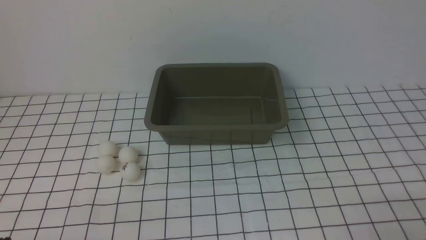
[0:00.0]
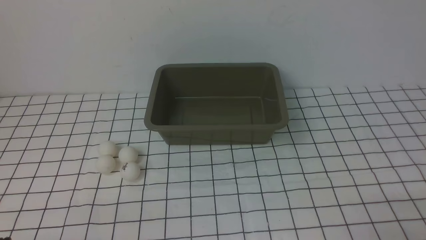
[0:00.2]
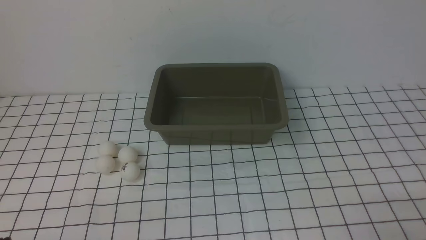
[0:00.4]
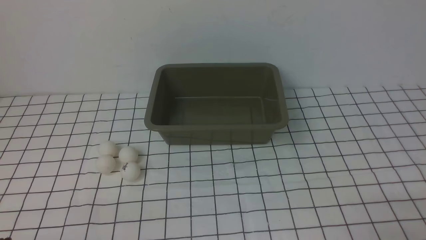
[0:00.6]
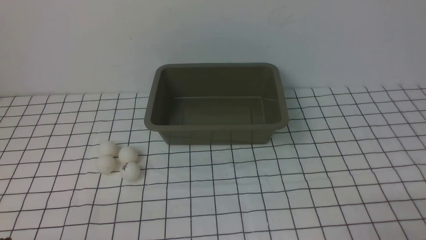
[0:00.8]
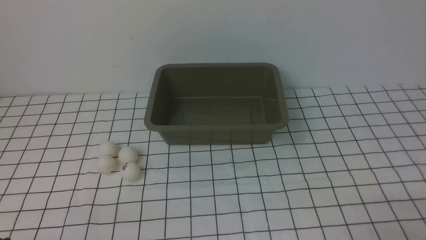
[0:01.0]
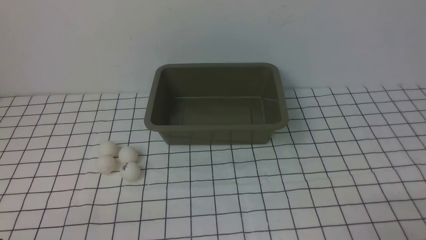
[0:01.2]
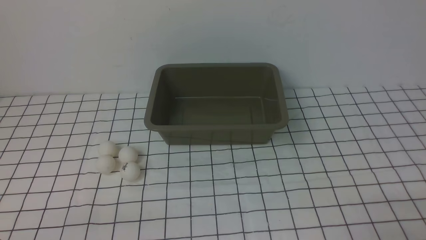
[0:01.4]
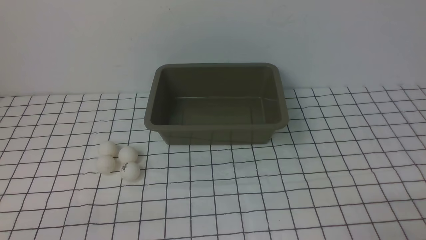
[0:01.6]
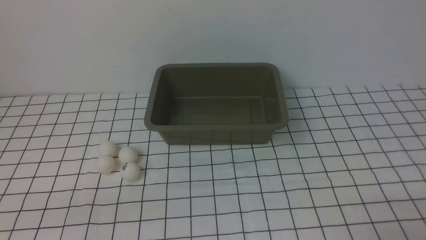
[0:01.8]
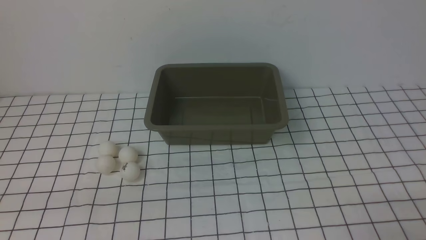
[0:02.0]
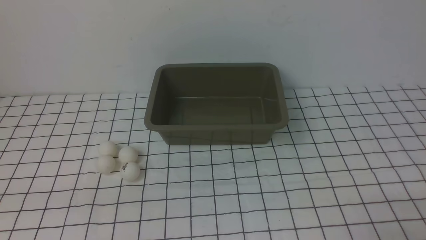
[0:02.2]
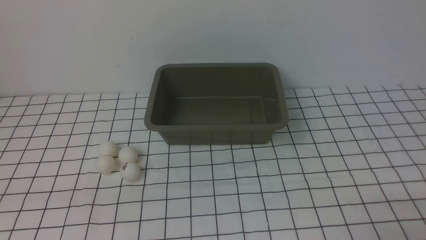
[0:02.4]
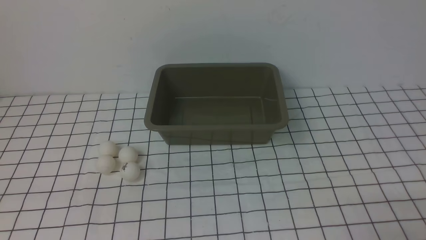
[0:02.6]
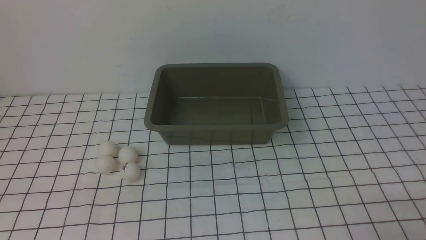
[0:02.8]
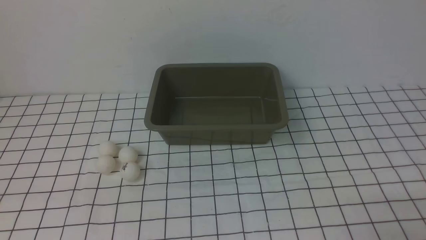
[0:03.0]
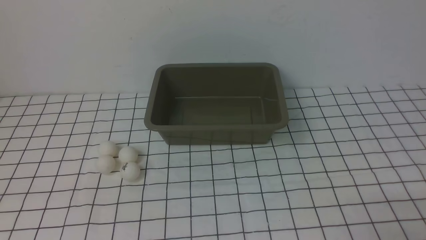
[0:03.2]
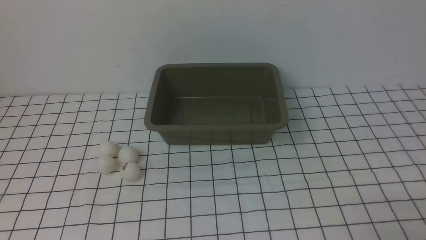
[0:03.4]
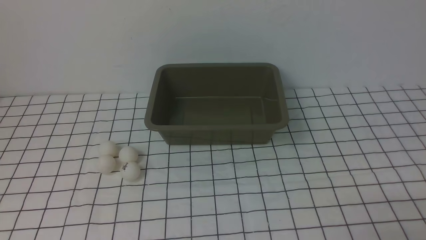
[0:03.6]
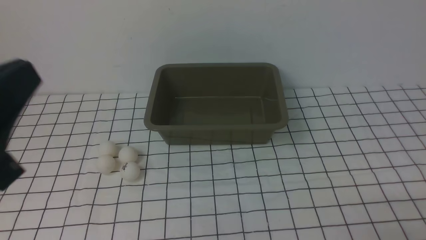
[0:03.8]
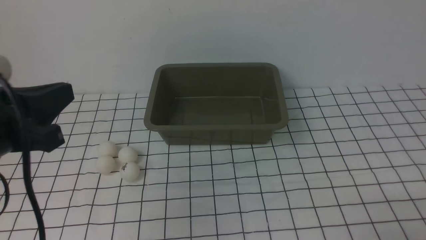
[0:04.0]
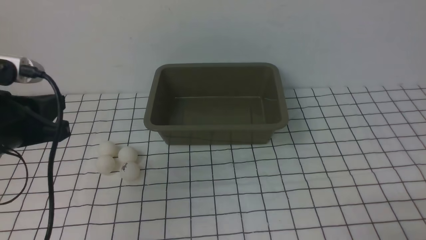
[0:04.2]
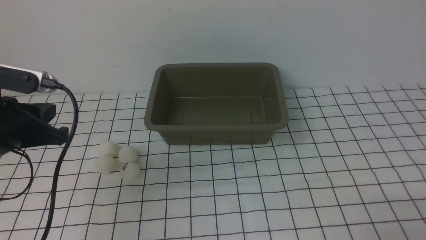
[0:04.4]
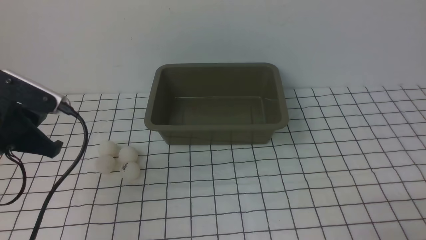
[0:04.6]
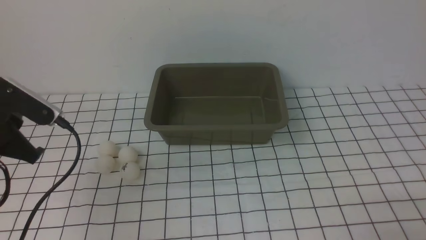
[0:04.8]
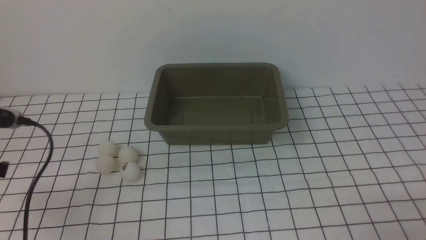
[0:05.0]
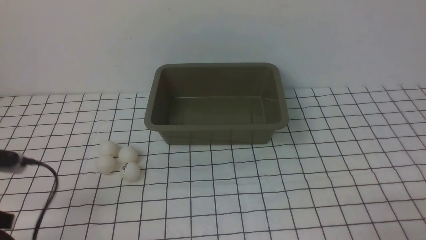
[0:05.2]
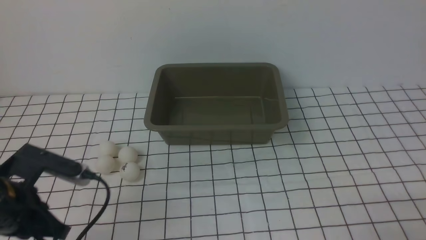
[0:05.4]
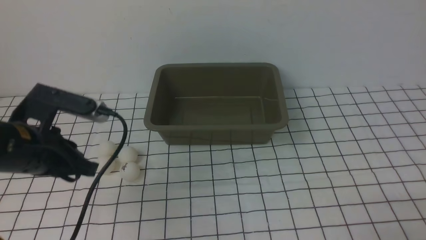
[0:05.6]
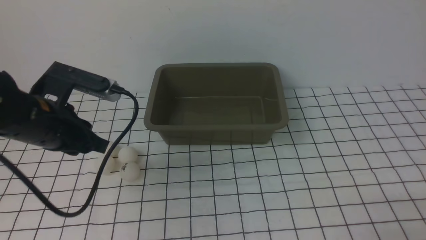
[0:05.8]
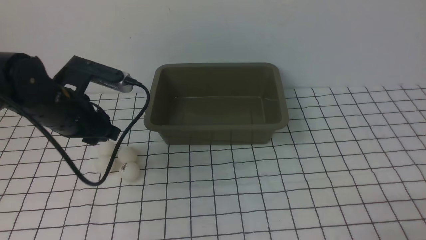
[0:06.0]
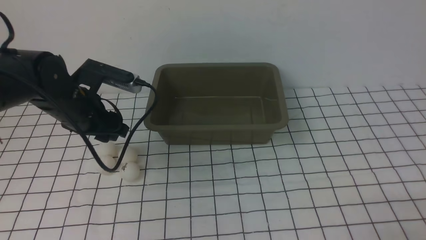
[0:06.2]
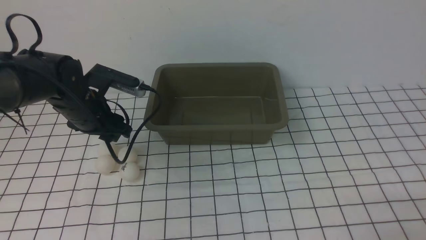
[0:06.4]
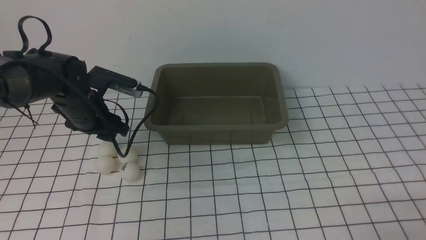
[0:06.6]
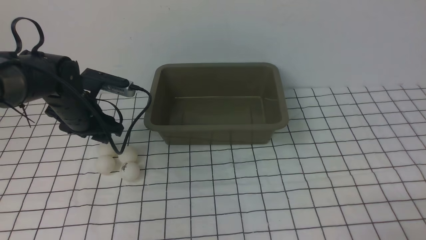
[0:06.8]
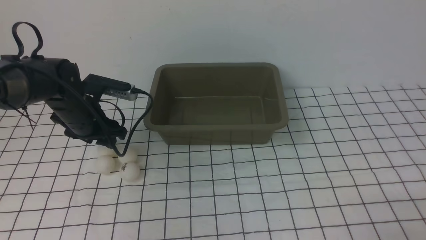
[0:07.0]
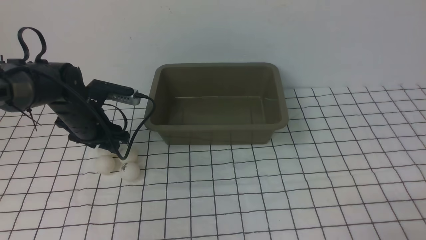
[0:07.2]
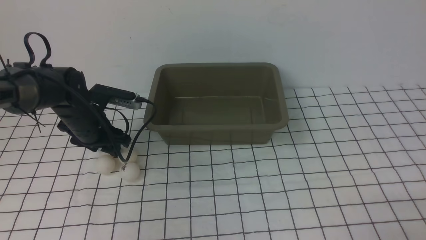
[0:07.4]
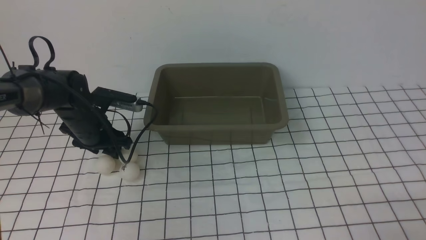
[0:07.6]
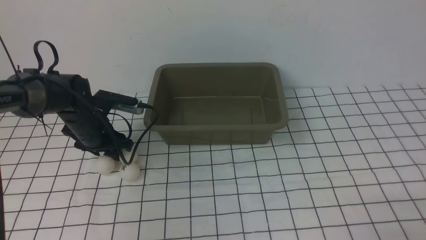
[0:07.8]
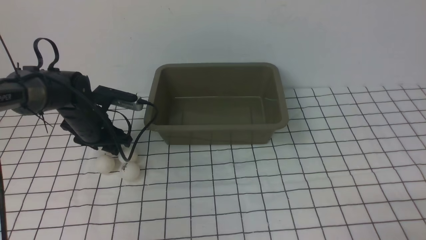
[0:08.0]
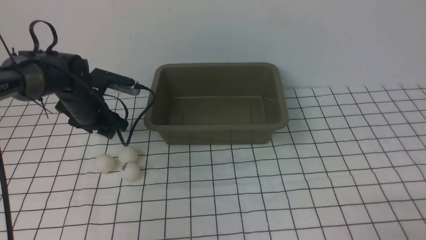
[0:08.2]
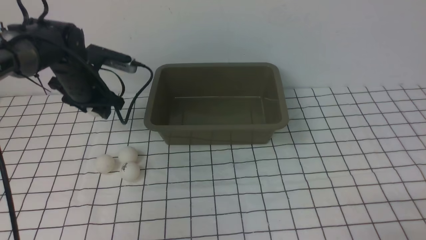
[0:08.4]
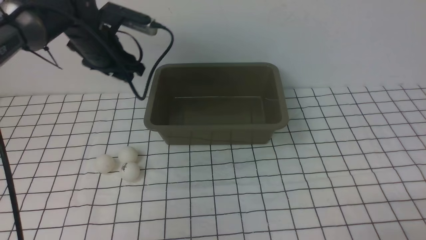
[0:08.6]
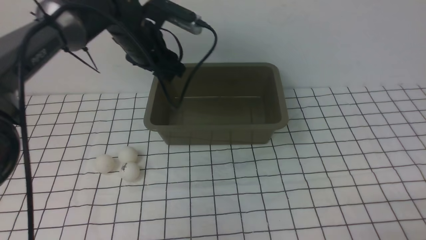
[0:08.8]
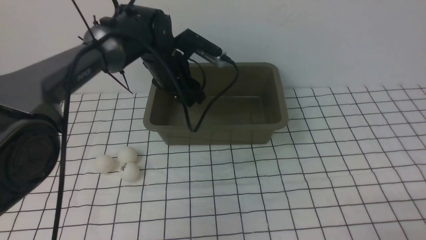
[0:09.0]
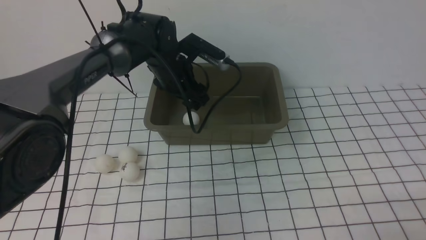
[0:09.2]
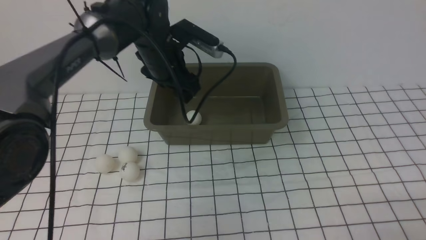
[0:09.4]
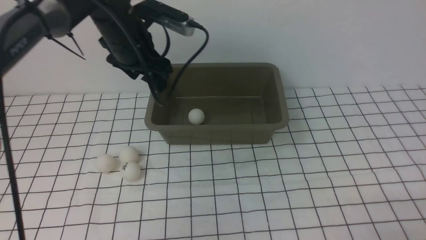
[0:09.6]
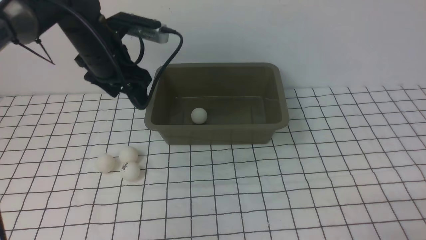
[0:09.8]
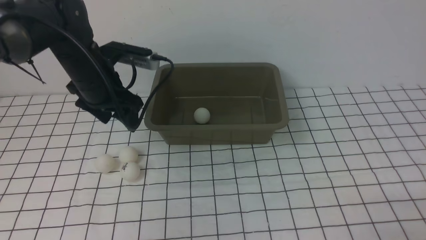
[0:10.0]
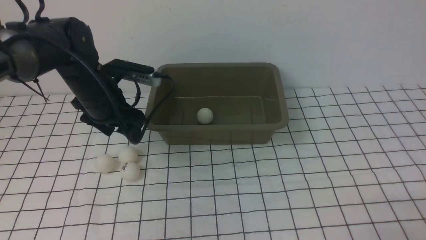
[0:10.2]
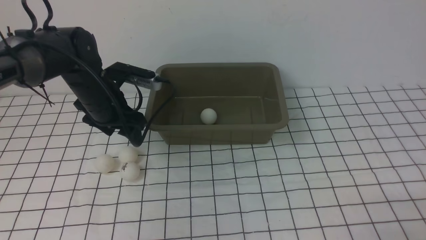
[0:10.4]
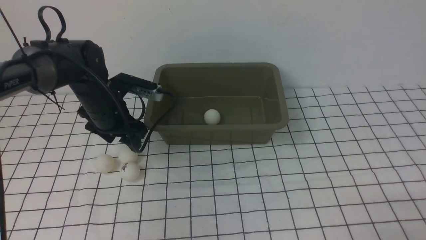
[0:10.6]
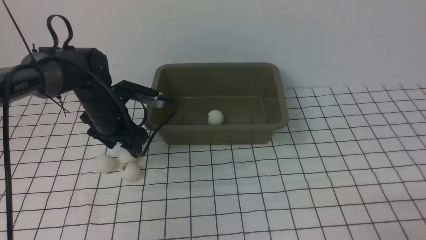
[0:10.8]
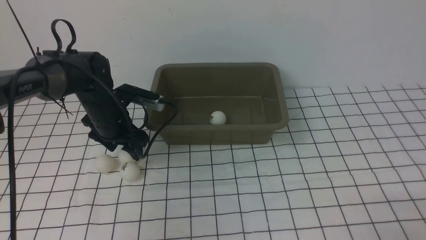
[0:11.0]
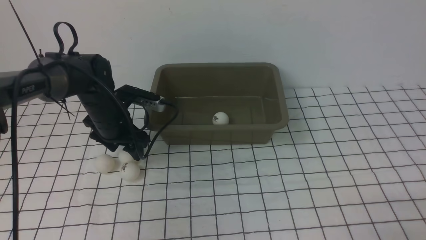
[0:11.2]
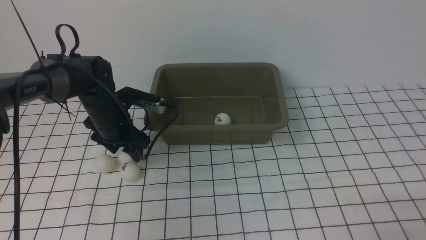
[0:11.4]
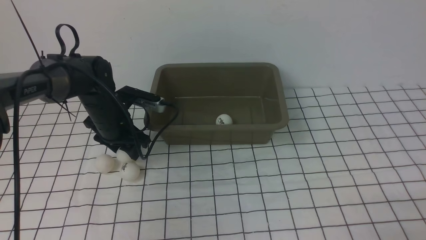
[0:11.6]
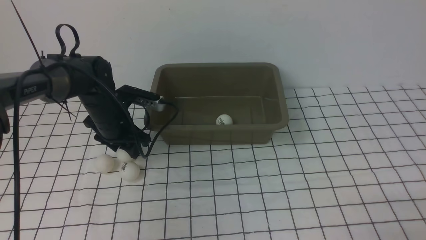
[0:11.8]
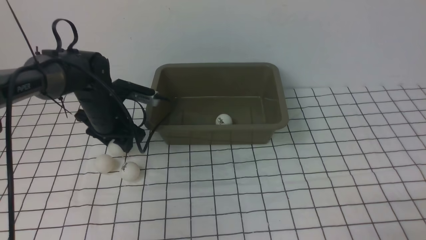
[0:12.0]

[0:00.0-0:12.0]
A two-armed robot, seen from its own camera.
Step, 0:00.0 to 0:08.2: use the left arm to clamp the table tennis ball closest to it.
Step, 0:08.4 to 0:09.2: use the left arm to put the table tennis ball into the box.
0:03.0 to 0:04.4: The left gripper heads forward, covering some 20 cm.
0:04.4 to 0:06.0: The left gripper travels forward and to the right by some 10 cm, and opens up.
0:06.0 to 0:07.6: The left gripper heads downward and forward, covering some 10 cm.
0:07.6 to 0:09.0: The left gripper goes roughly 20 cm to the right, upward and forward.
0:09.0 to 0:10.4: The left gripper travels to the left and backward by approximately 10 cm.
0:10.4 to 0:12.0: The grippers move only a little.

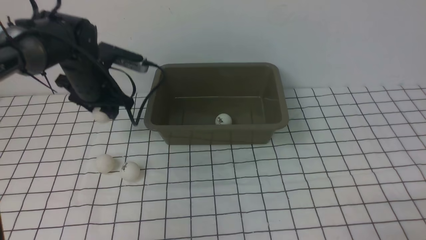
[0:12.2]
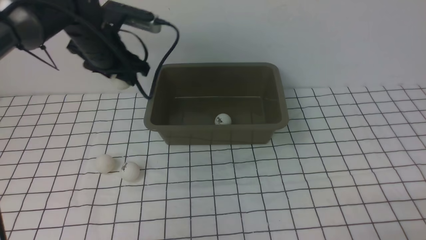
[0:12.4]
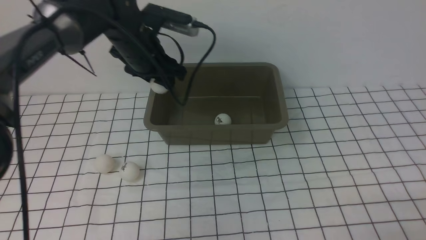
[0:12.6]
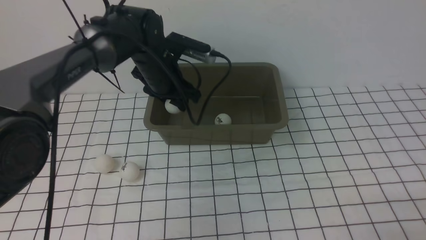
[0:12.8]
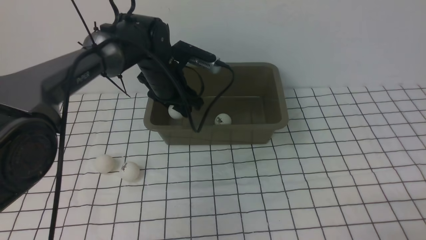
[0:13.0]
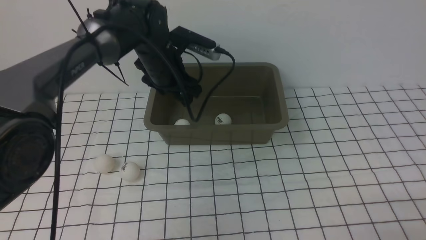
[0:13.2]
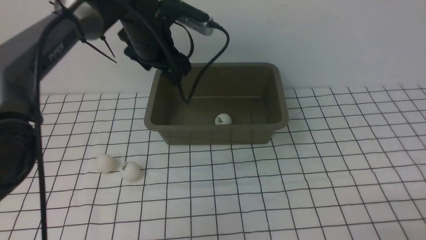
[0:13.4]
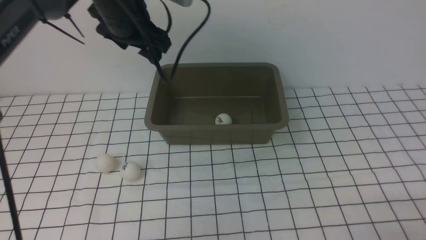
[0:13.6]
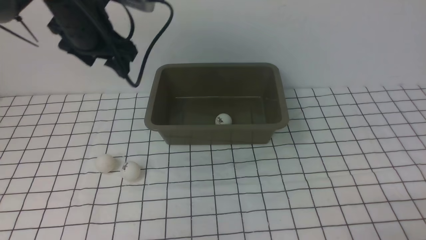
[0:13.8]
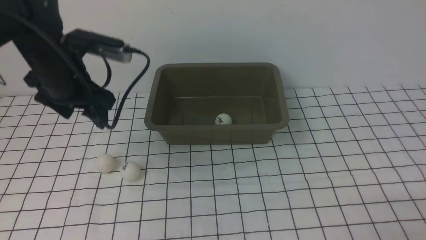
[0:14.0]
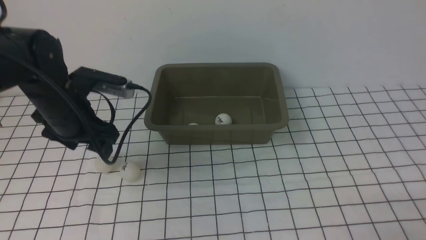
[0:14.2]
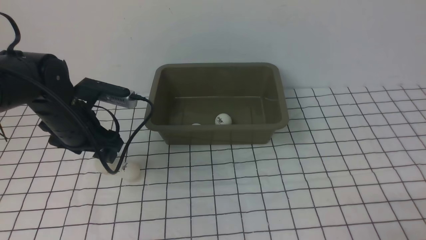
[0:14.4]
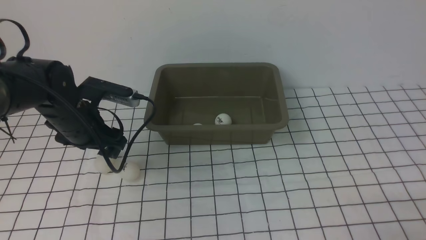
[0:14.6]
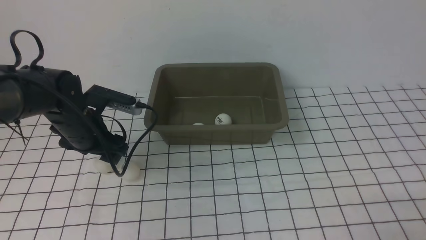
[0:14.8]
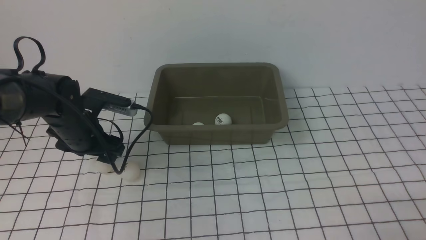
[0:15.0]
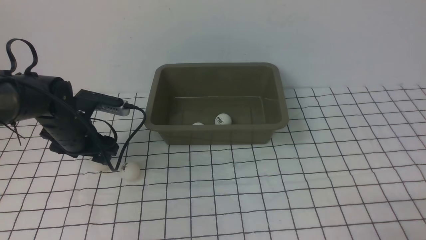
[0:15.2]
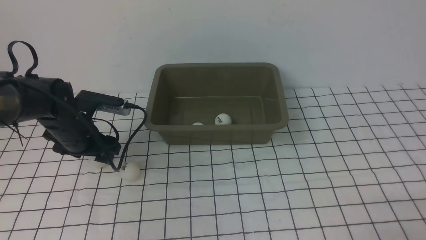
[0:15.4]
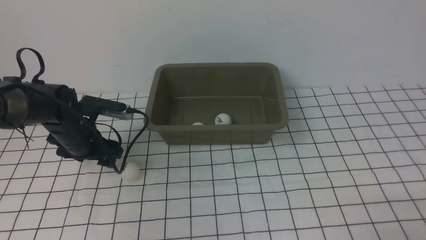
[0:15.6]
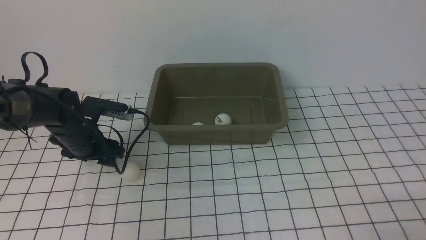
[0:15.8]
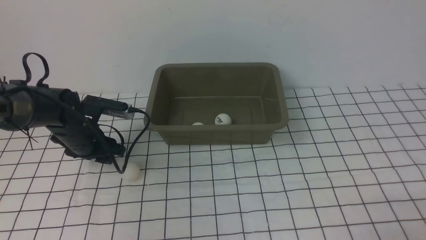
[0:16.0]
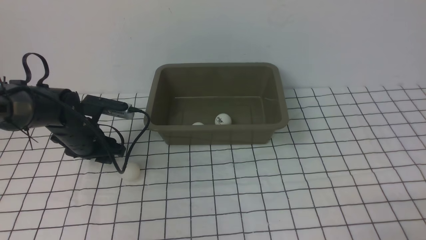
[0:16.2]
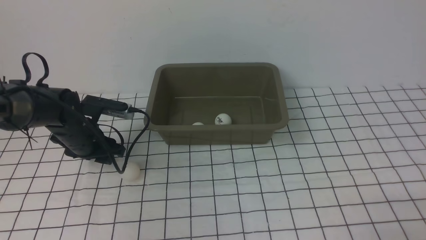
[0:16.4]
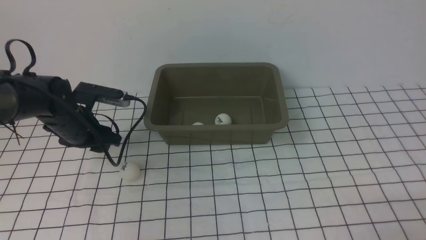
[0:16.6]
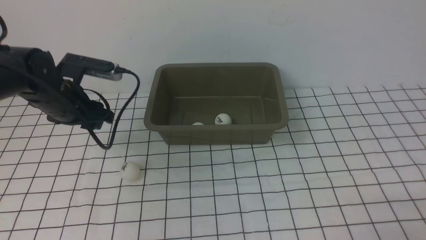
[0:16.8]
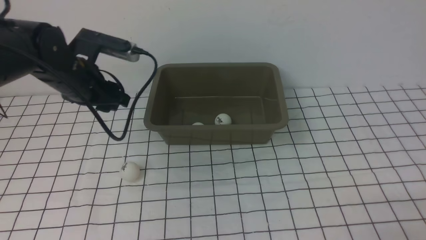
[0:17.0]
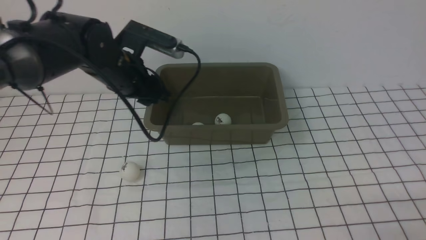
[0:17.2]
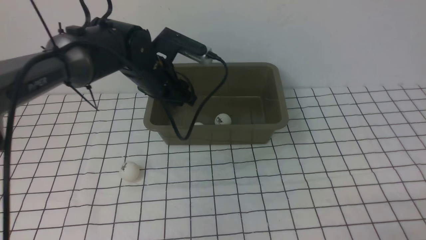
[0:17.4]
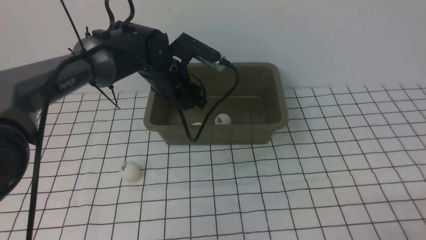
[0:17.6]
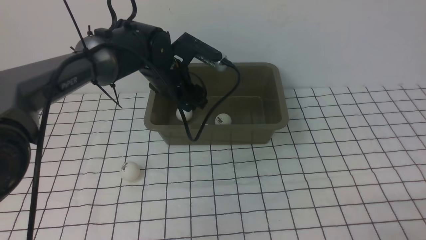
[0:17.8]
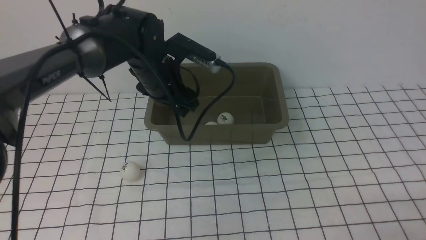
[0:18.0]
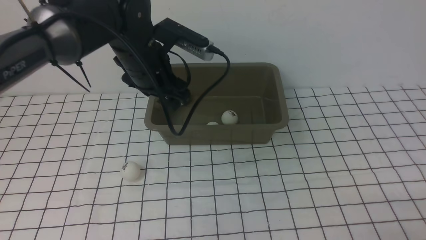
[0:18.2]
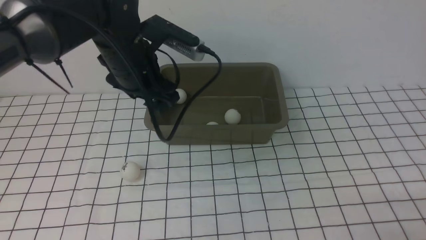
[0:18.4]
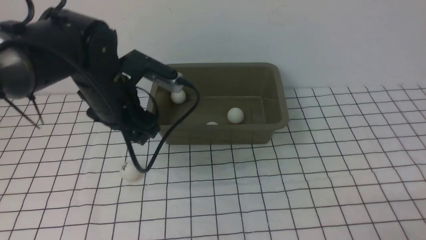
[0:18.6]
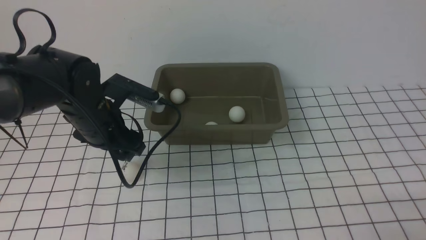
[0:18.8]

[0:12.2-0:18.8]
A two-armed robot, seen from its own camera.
Step, 0:12.2 to 0:13.2: use the left arm to put the table tennis ball into the box.
Step, 0:13.4 to 0:16.6: use the left arm to clamp the table tennis ball closest to it.
Step, 0:17.0 to 0:17.8: use the left arm to put the table tennis ball into the box.
0:12.2 to 0:13.8: The left gripper moves upward, about 5 cm, reaches about 10 cm to the right, then returns, and opens.
0:13.8 to 0:15.4: The left gripper goes some 15 cm downward.
0:15.4 to 0:17.2: The left gripper is displaced to the right and upward by approximately 15 cm.
0:17.2 to 0:18.8: The left gripper travels backward by approximately 5 cm.
